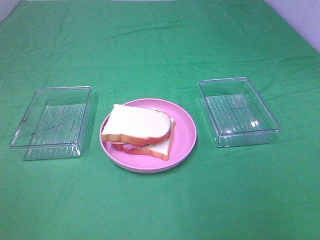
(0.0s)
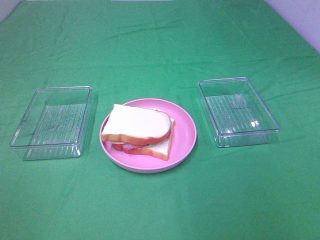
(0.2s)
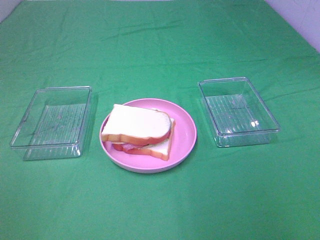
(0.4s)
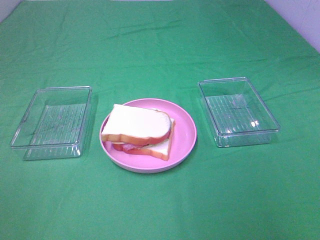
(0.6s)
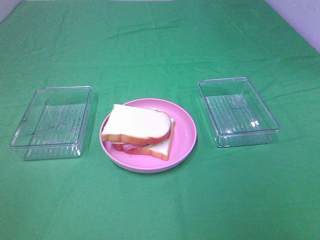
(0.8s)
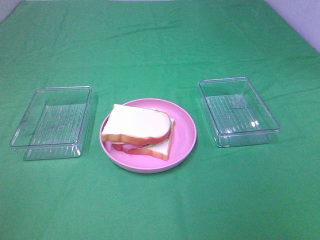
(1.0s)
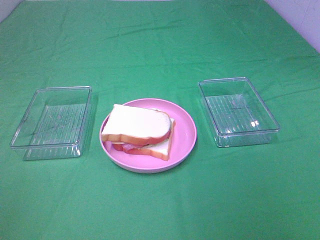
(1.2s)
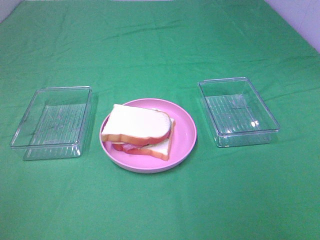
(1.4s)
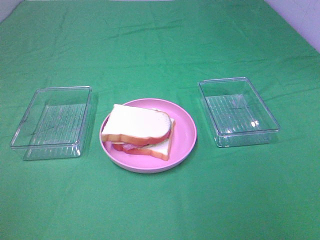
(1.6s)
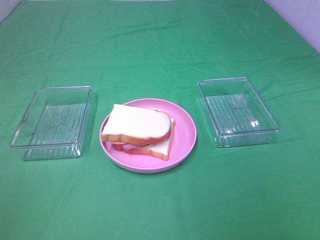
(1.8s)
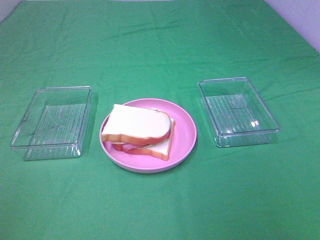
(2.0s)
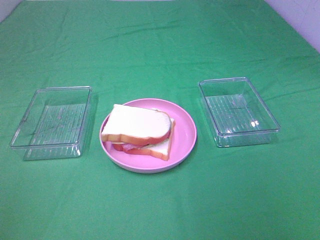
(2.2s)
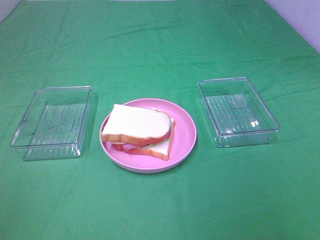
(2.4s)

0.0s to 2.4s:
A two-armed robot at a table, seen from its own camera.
Task of the whole recording: Make sandwiches.
1.2s to 2.4s: Both grippers stay about where they are.

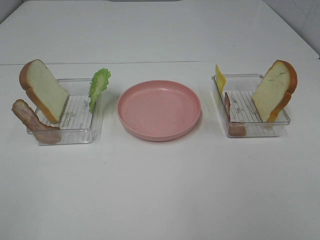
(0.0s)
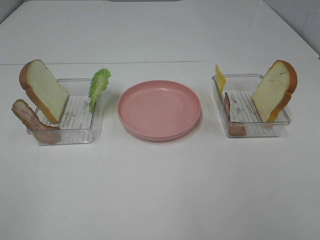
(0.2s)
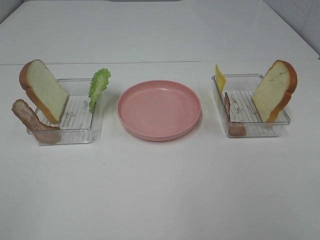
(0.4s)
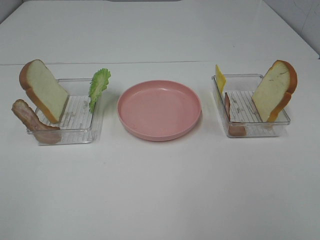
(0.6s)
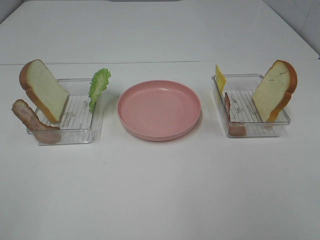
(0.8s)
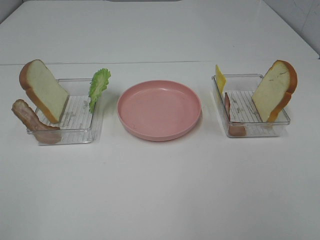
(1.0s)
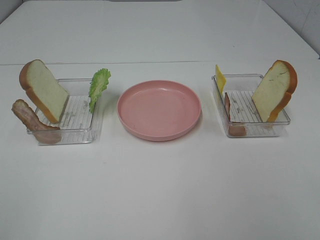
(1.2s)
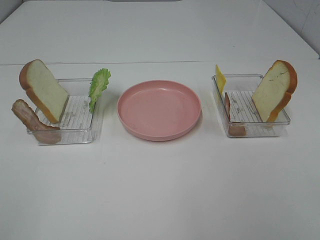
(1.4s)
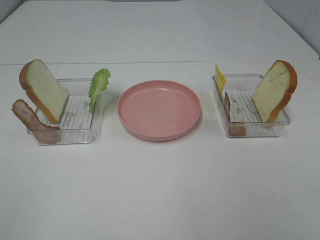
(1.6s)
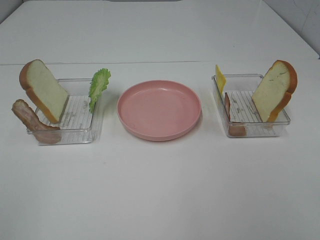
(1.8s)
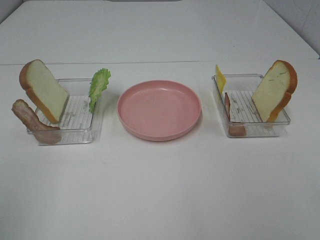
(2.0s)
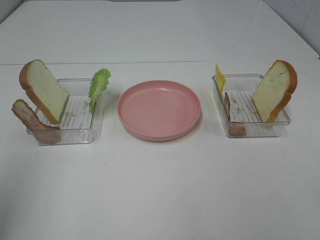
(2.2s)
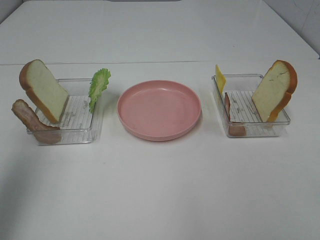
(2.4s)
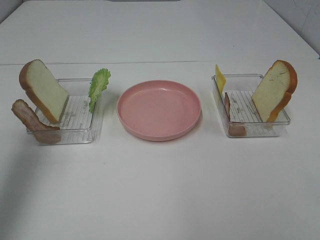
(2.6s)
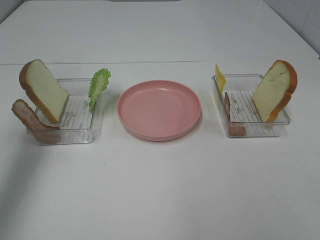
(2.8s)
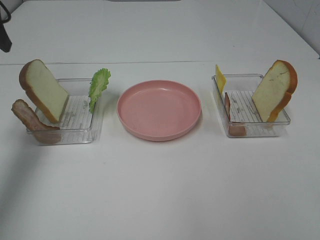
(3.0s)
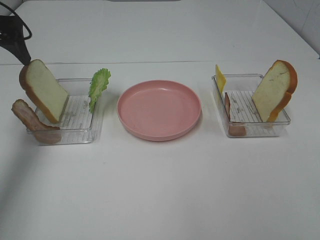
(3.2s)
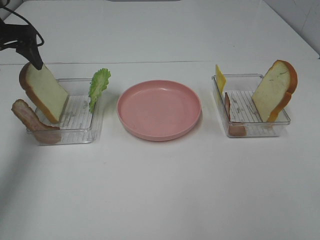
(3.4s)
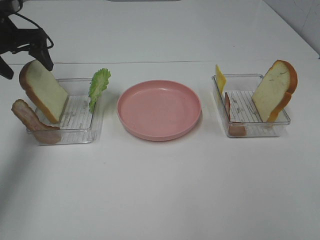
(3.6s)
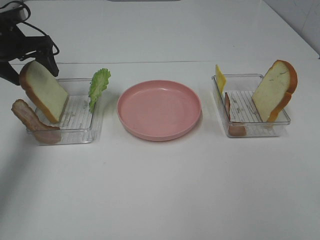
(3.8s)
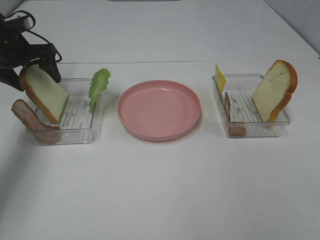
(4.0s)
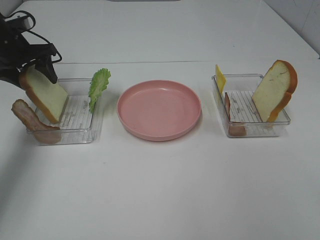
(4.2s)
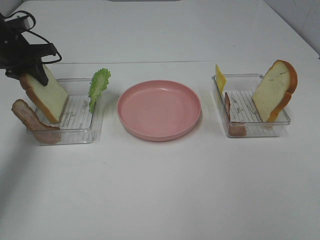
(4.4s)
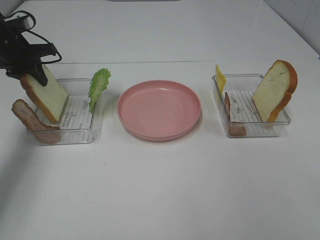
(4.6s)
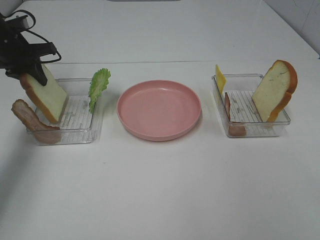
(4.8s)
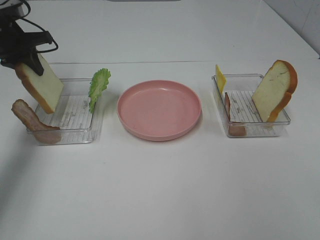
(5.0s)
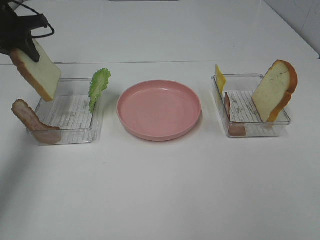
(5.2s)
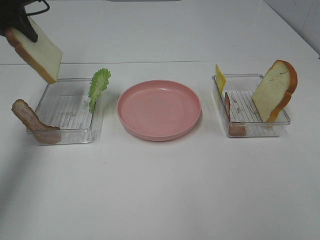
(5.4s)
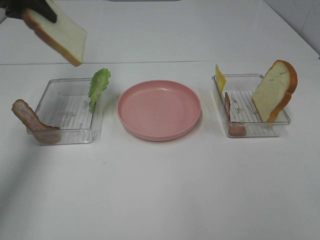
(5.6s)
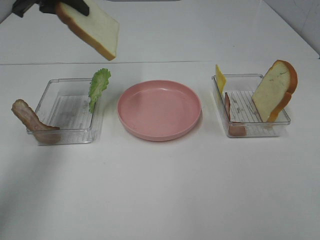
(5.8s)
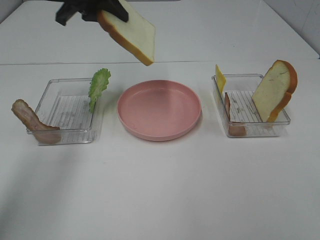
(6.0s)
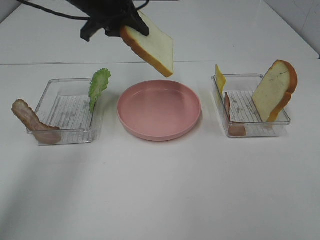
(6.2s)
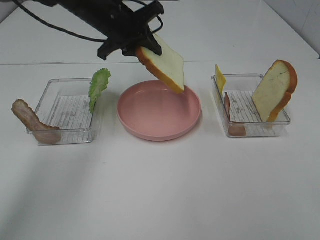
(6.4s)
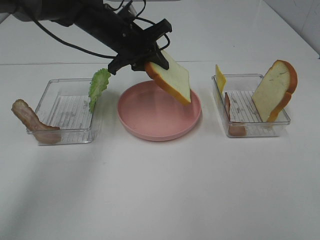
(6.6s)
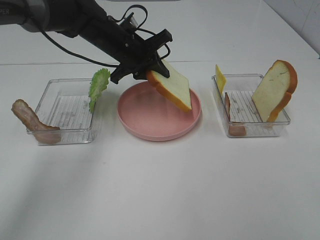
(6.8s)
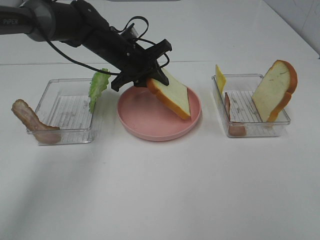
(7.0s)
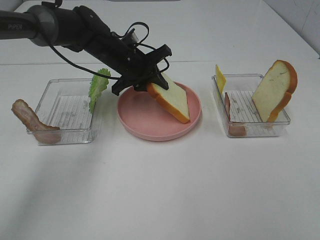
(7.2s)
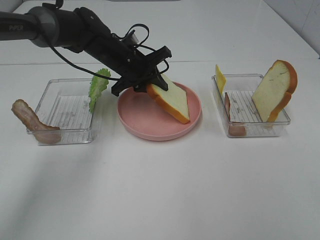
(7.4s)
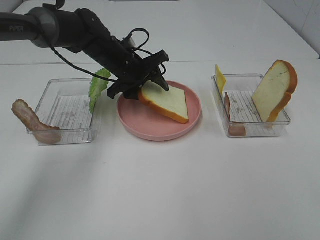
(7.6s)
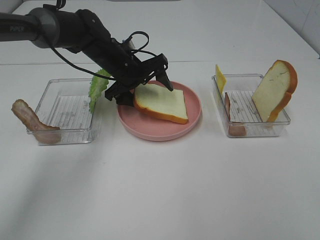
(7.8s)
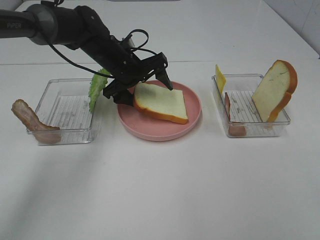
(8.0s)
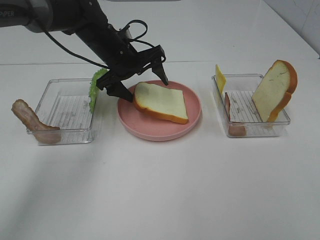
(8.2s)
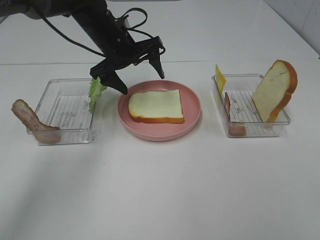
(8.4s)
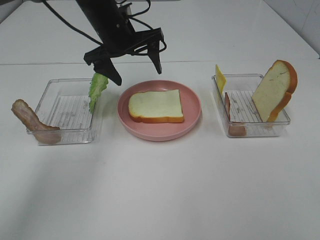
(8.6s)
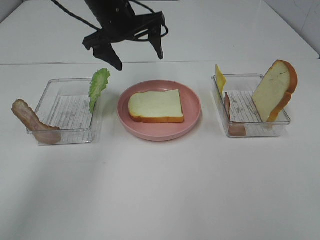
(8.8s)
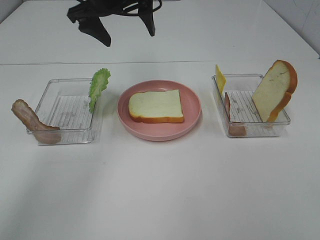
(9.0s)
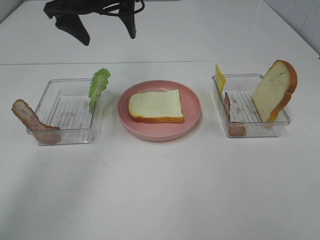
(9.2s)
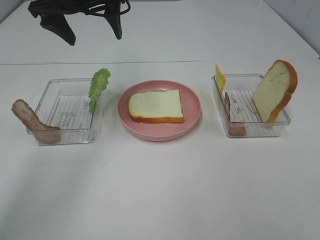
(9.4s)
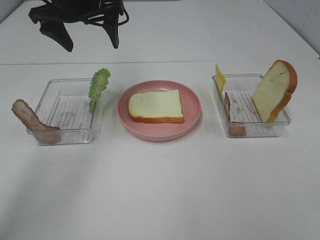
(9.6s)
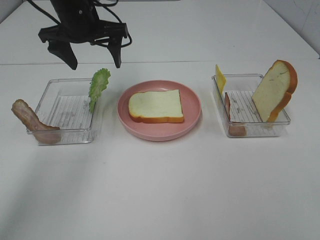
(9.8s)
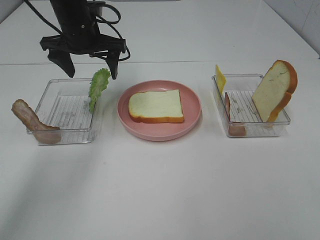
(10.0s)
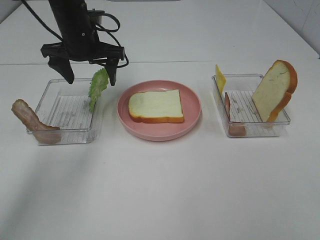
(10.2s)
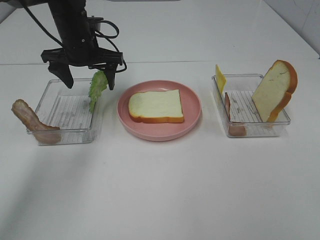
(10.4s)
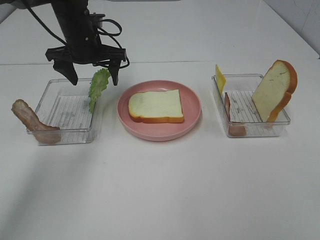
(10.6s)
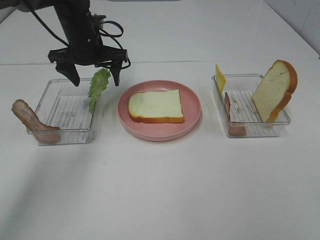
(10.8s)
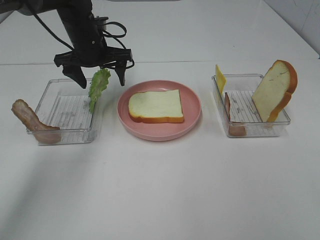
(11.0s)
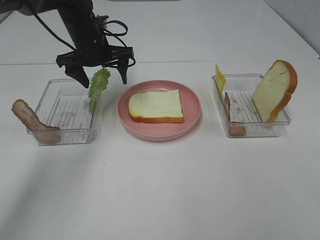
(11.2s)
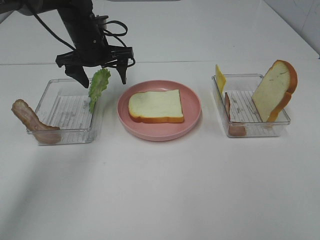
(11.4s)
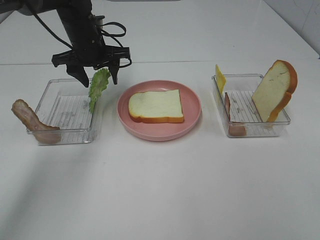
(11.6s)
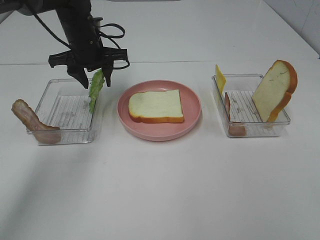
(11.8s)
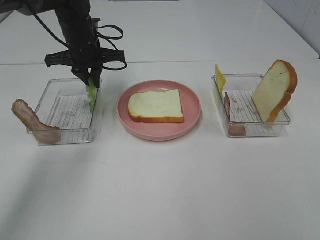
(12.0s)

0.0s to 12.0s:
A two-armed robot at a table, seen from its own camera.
Task of the whole recording: Make sandwiches.
Step, 0.0s to 4.6s: Left hand:grab the bread slice.
Step, 4.8s to 8.6s: Left hand:place the bread slice on the plate.
Step, 8.8s to 12.0s: Left hand:grab the lettuce slice.
0.0s to 1.6s: Neither gripper changes place.
1.6s to 3.0s: The left gripper heads forward, covering approximately 35 cm.
3.0s to 4.4s: The left gripper heads downward and forward, covering about 15 cm, and closes its fingers.
4.4s to 6.0s: The left gripper is displaced to the right and upward by about 20 cm.
6.0s to 7.6s: The left gripper travels downward and to the right by about 20 cm, and opens.
7.6s to 9.0s: The left gripper travels upward by about 15 cm.
9.0s to 10.4s: The left gripper moves downward and to the left, some 10 cm.
10.4s to 12.0s: The left gripper closes up.

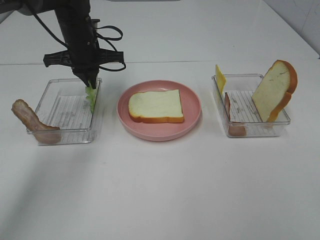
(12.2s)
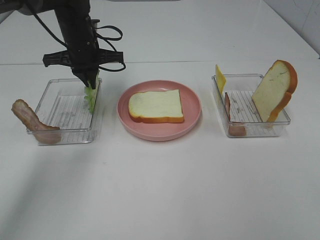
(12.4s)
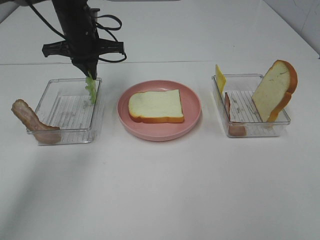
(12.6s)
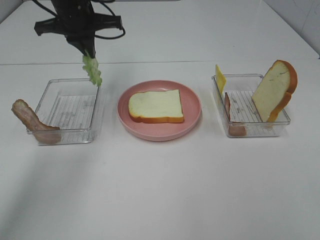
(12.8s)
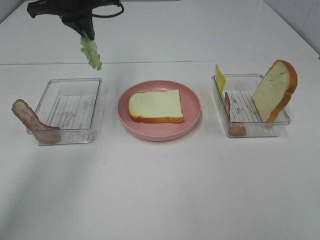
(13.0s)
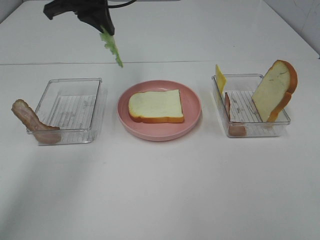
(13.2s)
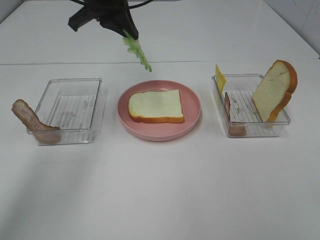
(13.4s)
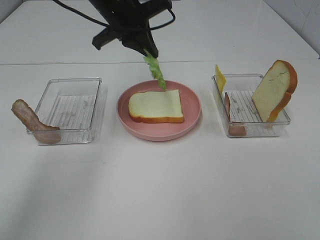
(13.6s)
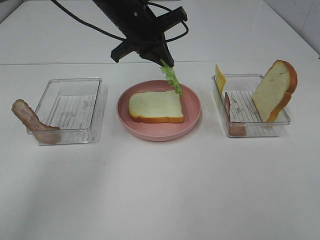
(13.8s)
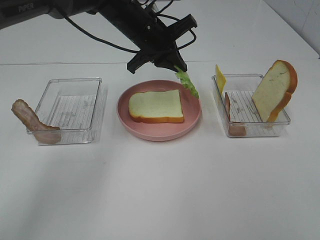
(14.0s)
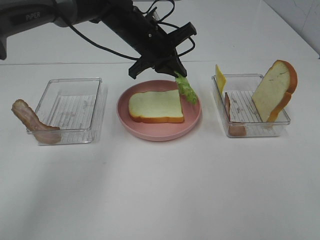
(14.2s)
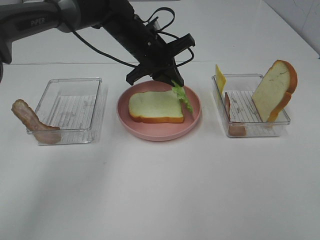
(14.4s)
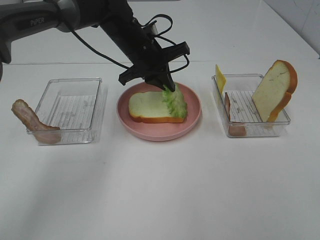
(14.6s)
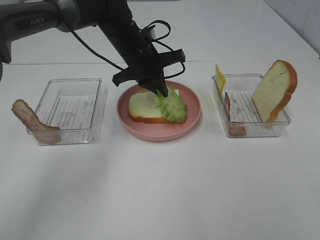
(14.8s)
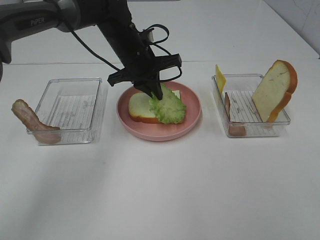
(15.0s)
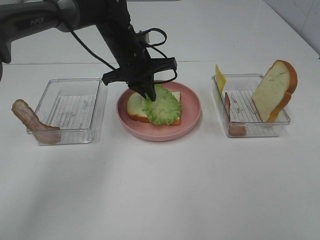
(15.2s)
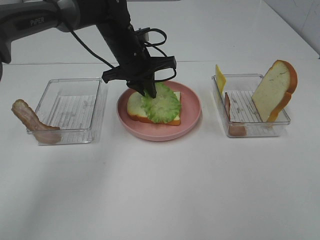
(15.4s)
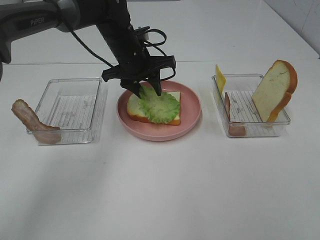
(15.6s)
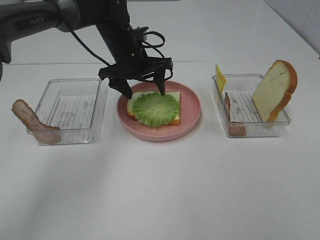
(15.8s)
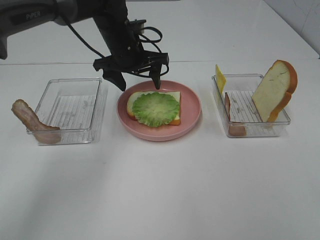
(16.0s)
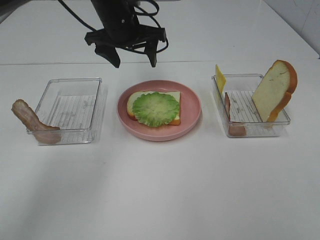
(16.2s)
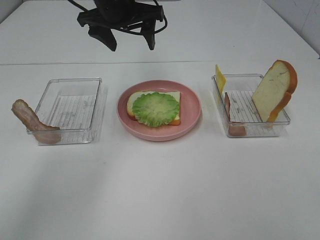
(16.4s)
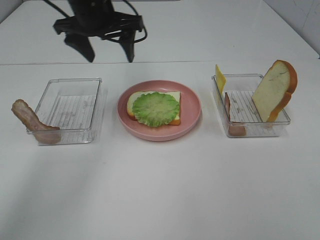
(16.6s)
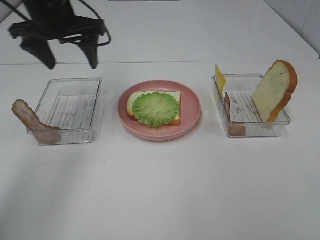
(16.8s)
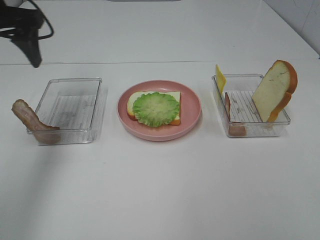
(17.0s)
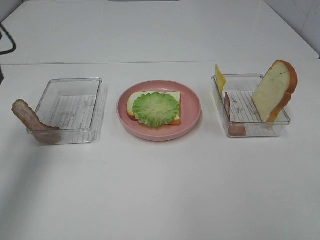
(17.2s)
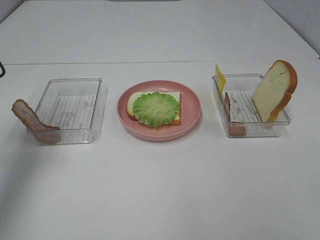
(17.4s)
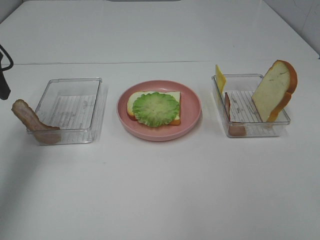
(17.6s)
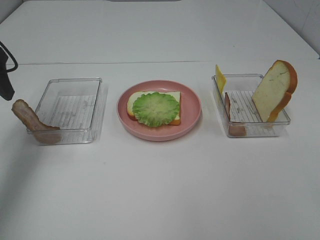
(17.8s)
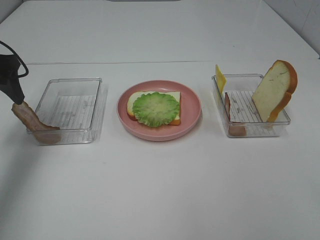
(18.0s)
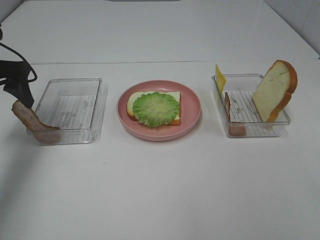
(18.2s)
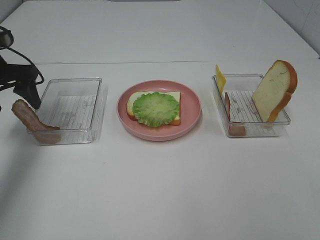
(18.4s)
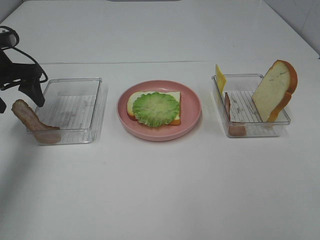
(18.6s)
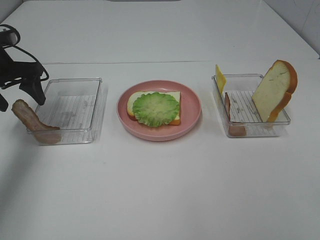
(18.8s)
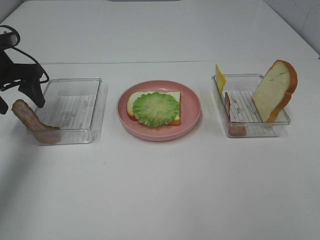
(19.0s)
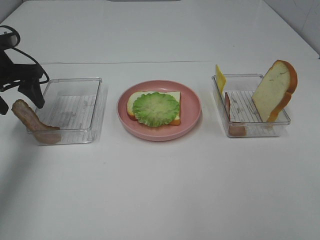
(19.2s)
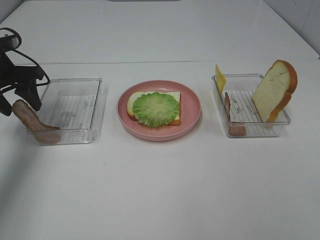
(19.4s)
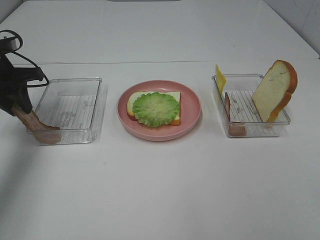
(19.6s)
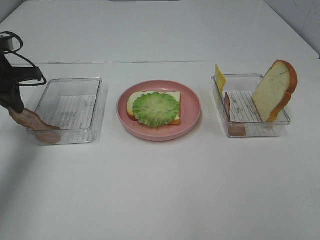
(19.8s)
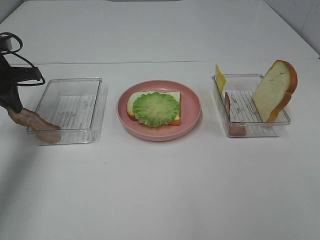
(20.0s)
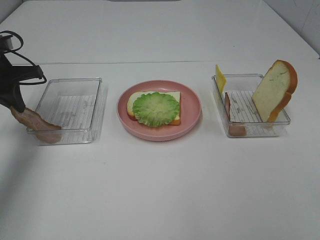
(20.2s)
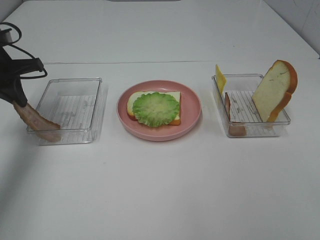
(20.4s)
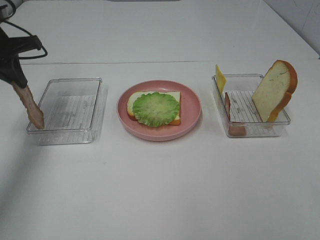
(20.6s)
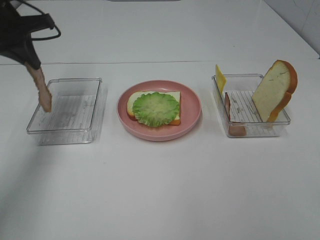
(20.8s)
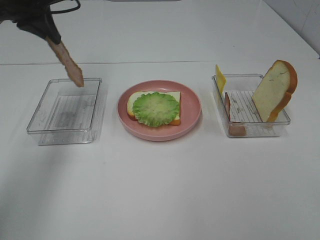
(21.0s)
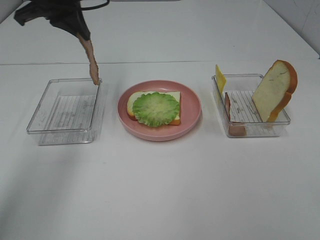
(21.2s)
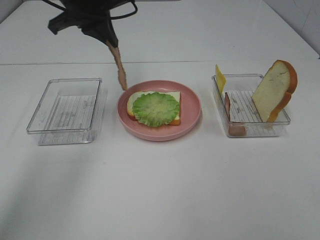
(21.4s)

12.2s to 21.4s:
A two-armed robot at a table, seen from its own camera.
Task of the whole recording: Make sandwiches.
Step, 12.2s to 15.8s: Left hand:place the lettuce slice on the bread slice.
Step, 16.0s to 20.2s: Left hand:grab the bacon.
12.2s to 13.8s: The left gripper heads to the right and upward, covering approximately 10 cm.
13.8s to 15.2s: The left gripper travels downward by roughly 5 cm.
15.2s to 16.8s: The left gripper shifts approximately 15 cm to the left and upward, and opens its fingers.
16.8s to 18.4s: The left gripper travels to the left and downward by roughly 15 cm.
18.4s to 19.8s: The left gripper closes its fingers.
19.8s to 21.4s: The left gripper is displaced to the right and upward by approximately 20 cm.
